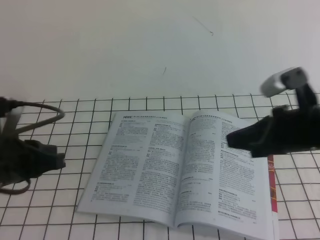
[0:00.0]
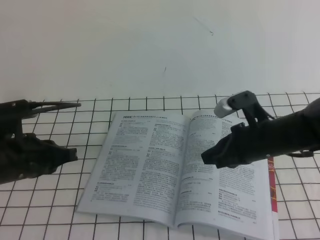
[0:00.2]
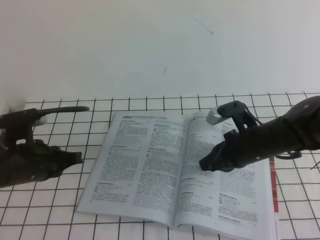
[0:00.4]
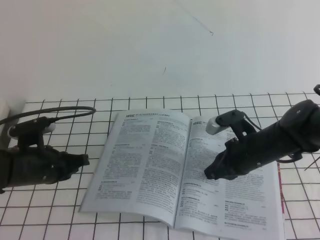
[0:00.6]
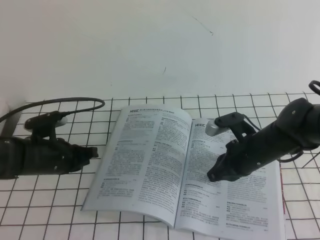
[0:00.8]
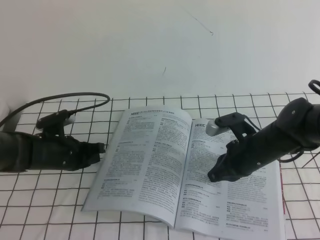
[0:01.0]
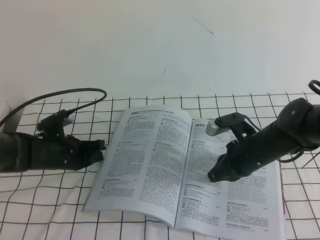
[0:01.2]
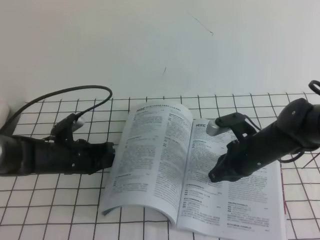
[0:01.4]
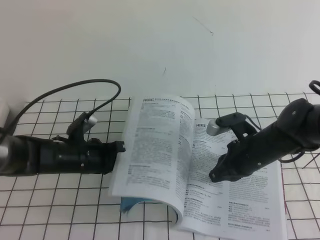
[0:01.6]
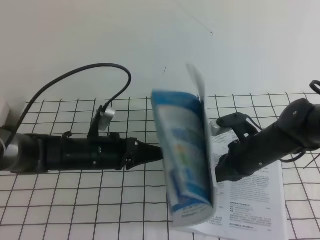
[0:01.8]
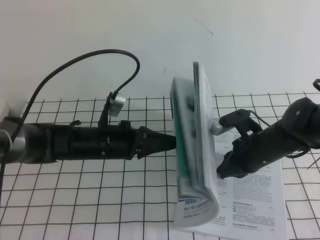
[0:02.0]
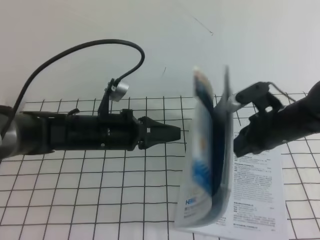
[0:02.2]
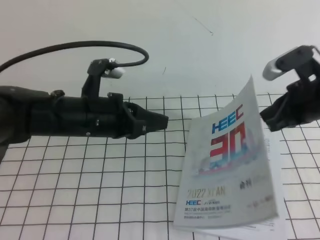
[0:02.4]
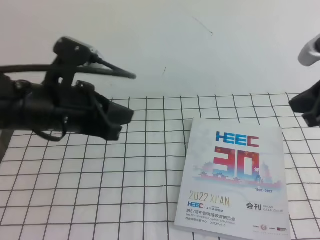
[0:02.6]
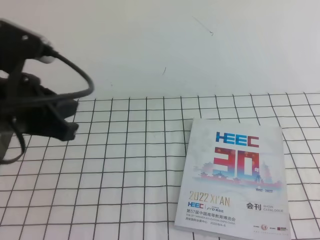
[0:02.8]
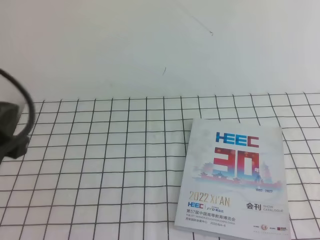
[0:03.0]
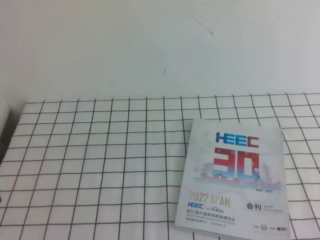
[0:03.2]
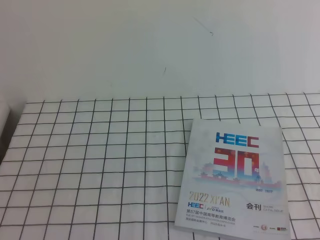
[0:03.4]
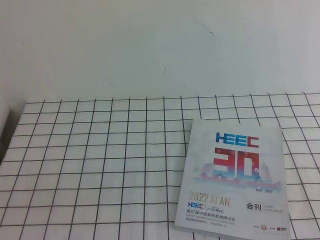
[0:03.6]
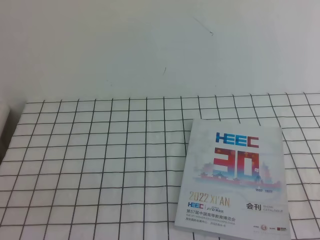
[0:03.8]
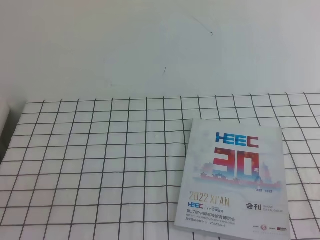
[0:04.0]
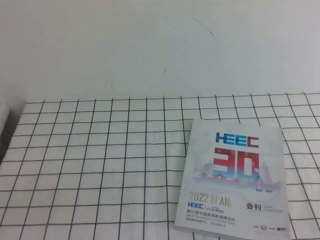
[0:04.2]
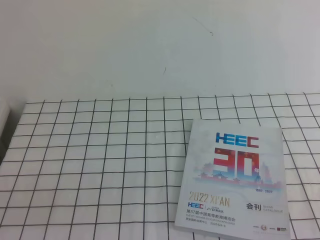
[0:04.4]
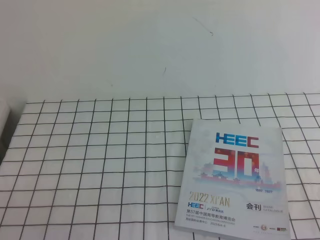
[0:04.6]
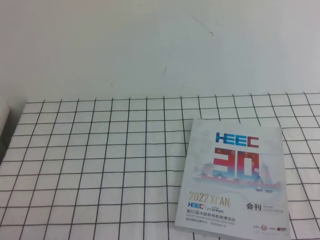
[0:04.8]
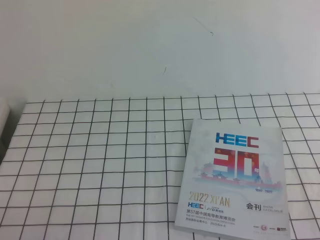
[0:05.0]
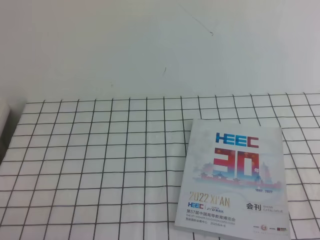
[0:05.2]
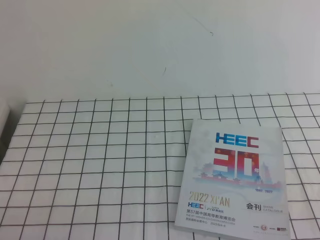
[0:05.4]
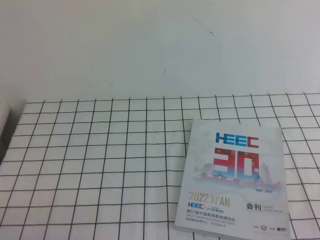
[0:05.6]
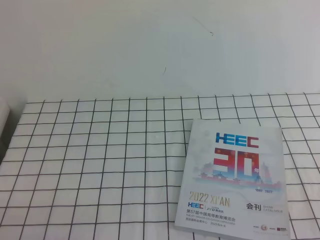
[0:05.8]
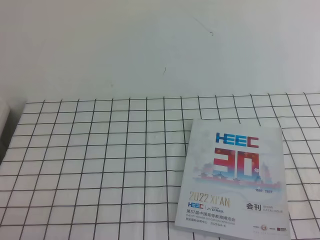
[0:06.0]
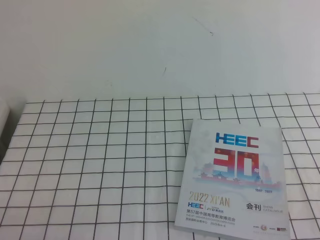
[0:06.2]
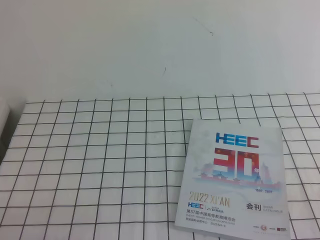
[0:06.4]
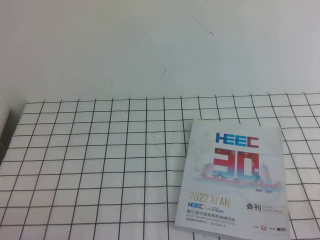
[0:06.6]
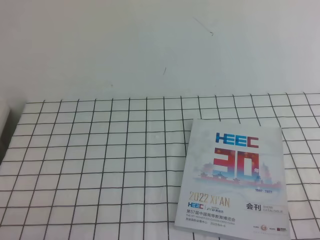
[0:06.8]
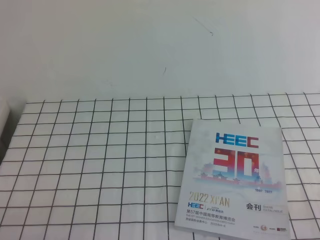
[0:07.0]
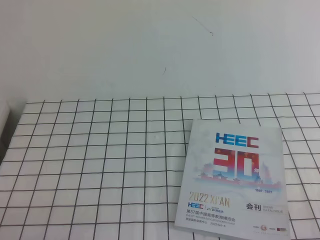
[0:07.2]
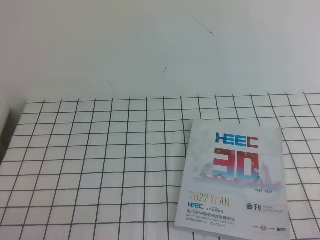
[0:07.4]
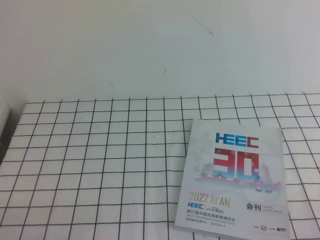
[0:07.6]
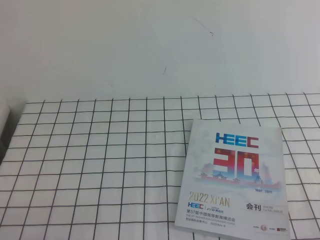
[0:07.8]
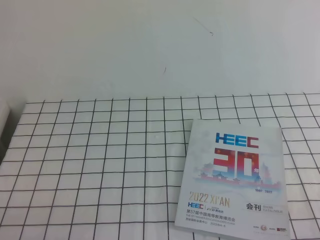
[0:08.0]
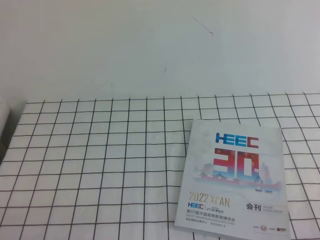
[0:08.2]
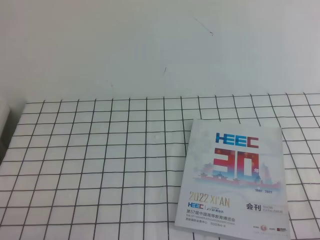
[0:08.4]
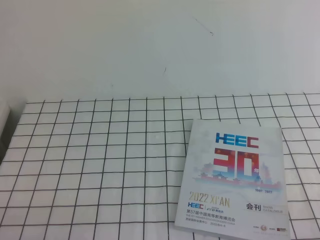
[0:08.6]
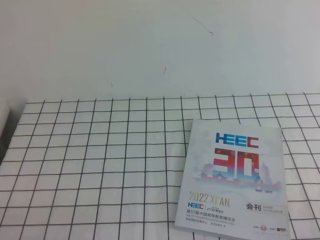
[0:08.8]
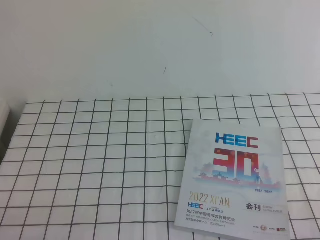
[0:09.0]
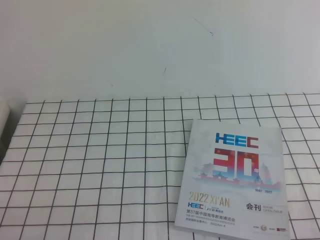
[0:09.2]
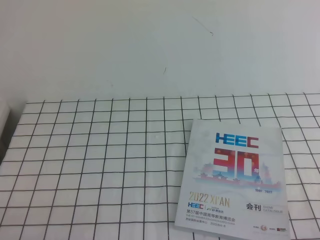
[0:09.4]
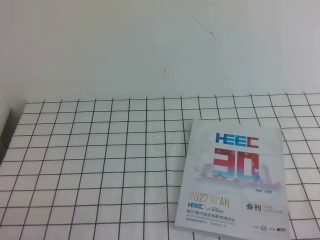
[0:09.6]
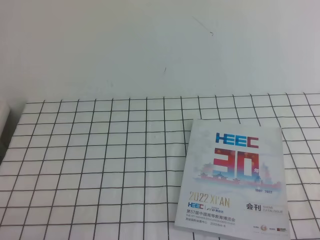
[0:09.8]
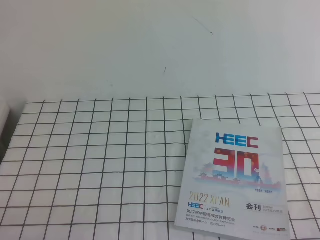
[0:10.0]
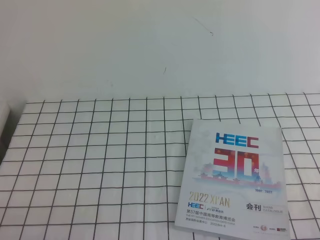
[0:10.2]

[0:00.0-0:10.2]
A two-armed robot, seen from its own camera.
Task of the whole recording: on the white tablecloth, hold the book with one hand and close it with the other.
0:00.0 to 0:01.4: The left gripper heads downward and forward, covering some 20 cm. Meanwhile the right gripper is displaced downward, forward and to the left by some 15 cm.
0:01.4 to 0:03.0: The right gripper is displaced upward, backward and to the right by roughly 30 cm, while the left gripper is displaced upward and backward by some 30 cm.
0:03.0 to 0:04.4: Both grippers travel together backward and downward, about 15 cm.
0:07.2 to 0:10.2: Neither gripper changes place.

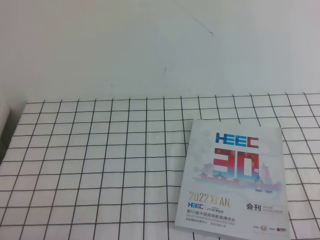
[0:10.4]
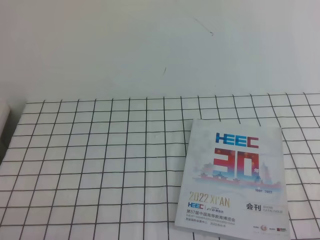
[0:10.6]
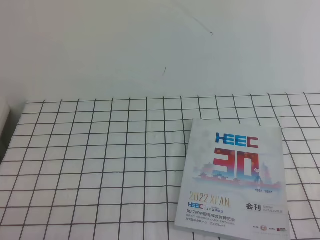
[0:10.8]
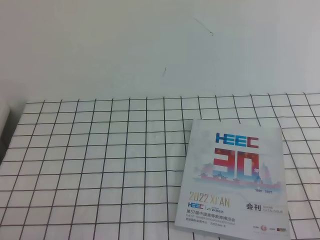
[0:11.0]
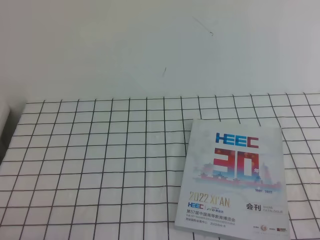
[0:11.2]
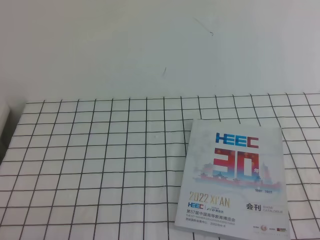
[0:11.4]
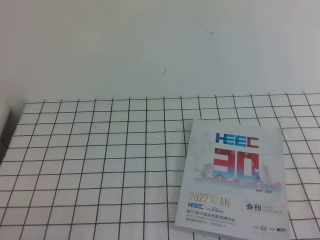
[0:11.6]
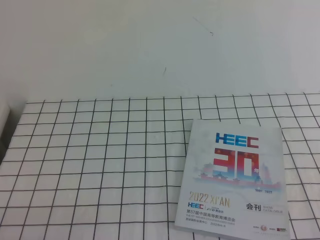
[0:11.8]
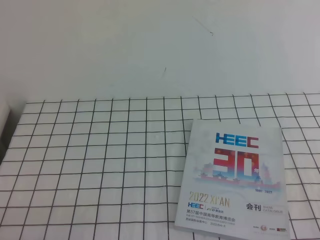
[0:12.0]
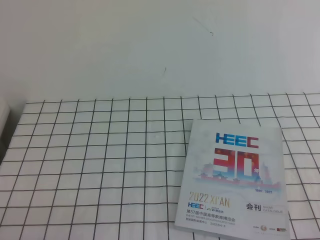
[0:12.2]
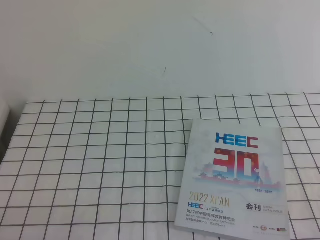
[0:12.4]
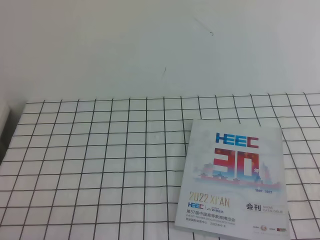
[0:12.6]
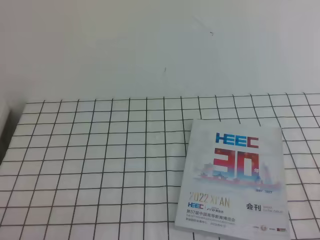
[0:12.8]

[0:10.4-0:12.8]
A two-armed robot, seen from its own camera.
Task of the whole recording: on the white tablecloth, hold the book with one hand and close it with the other.
0:10.4 to 0:12.8: Neither gripper changes place.
